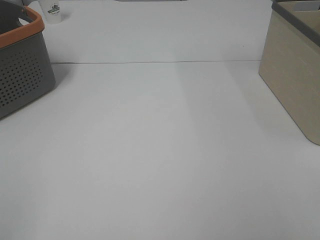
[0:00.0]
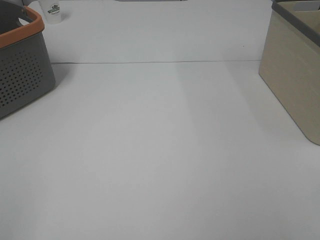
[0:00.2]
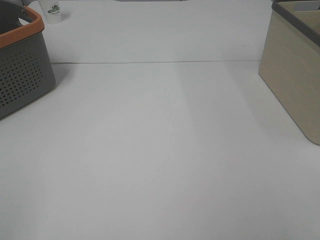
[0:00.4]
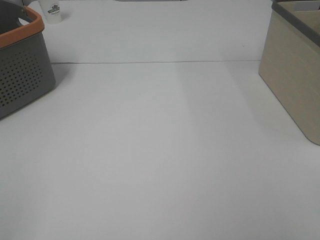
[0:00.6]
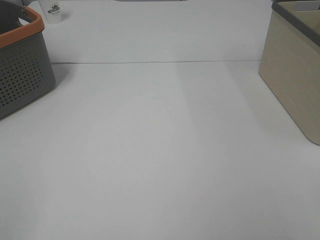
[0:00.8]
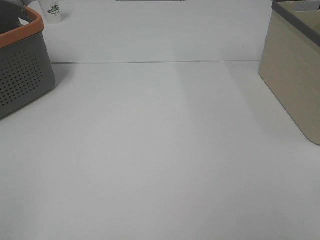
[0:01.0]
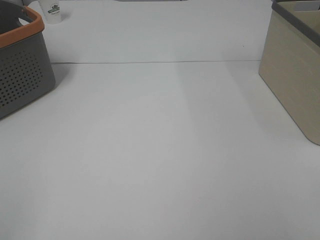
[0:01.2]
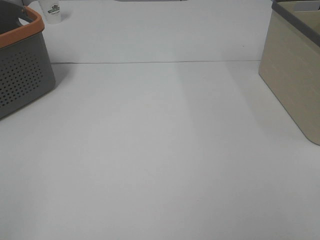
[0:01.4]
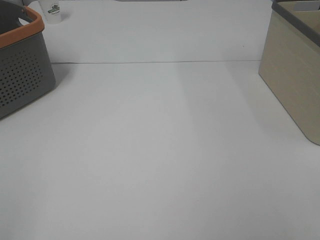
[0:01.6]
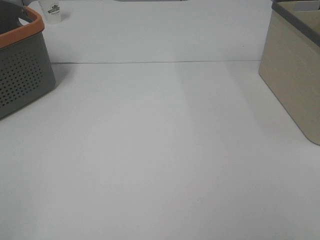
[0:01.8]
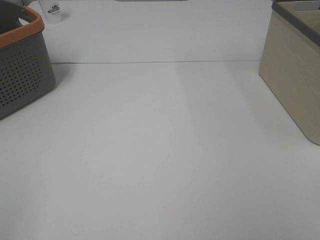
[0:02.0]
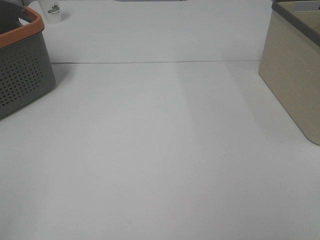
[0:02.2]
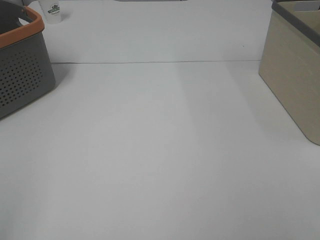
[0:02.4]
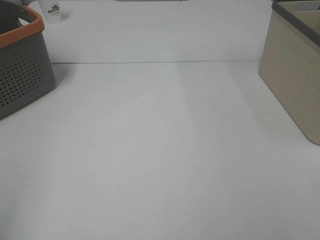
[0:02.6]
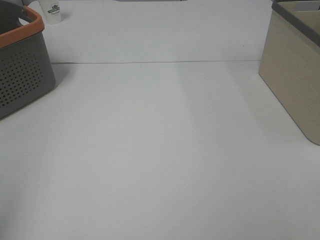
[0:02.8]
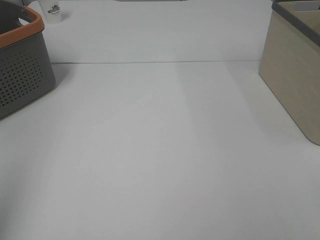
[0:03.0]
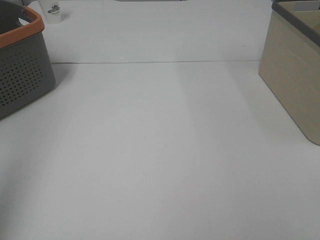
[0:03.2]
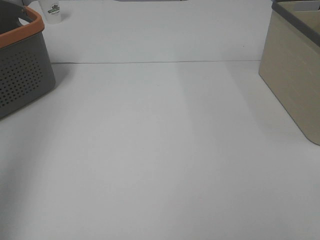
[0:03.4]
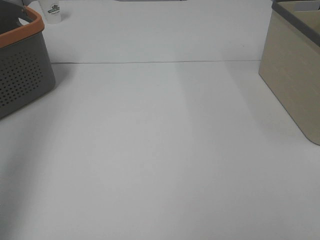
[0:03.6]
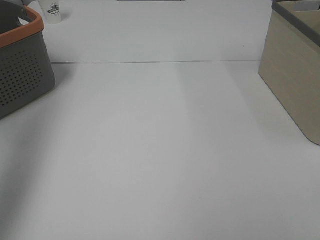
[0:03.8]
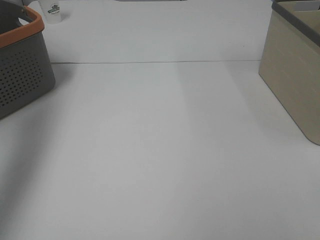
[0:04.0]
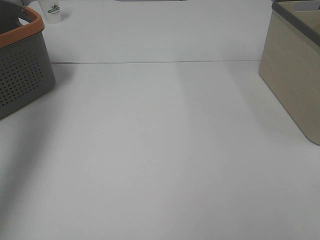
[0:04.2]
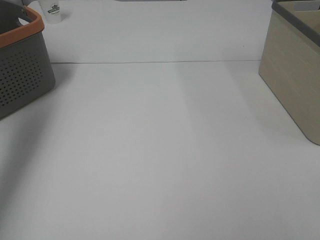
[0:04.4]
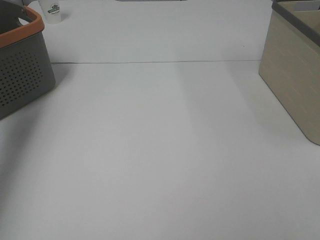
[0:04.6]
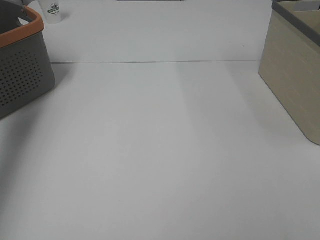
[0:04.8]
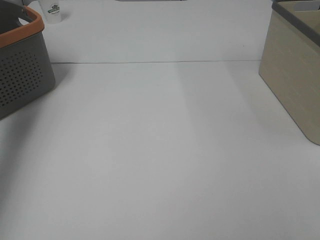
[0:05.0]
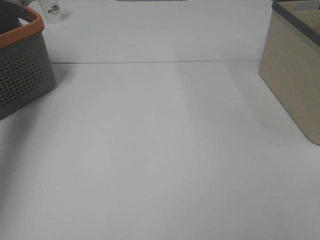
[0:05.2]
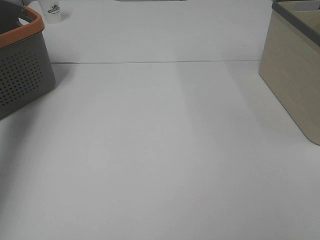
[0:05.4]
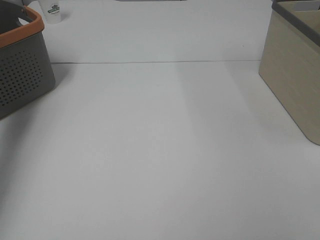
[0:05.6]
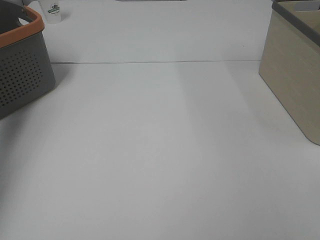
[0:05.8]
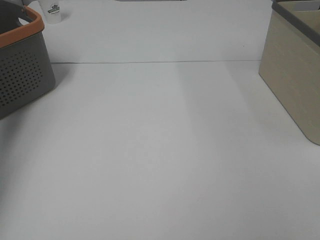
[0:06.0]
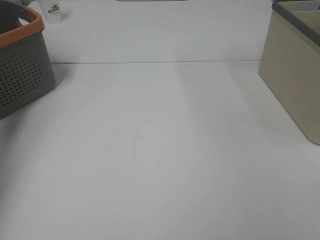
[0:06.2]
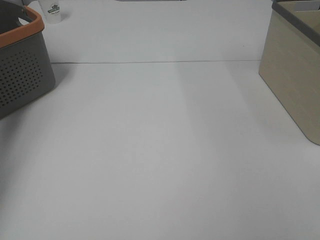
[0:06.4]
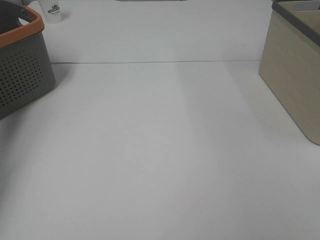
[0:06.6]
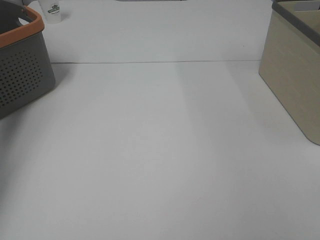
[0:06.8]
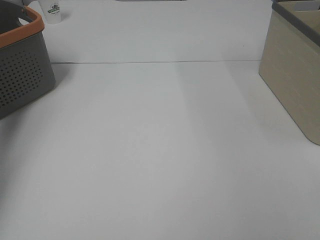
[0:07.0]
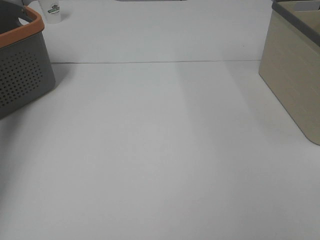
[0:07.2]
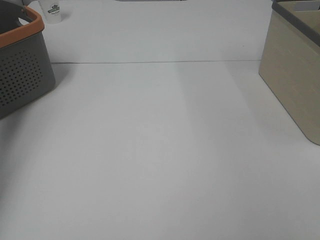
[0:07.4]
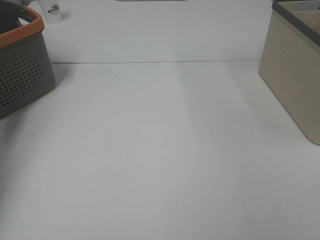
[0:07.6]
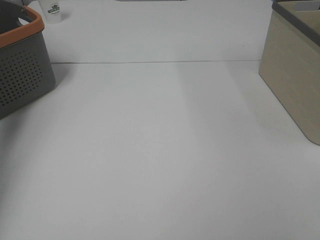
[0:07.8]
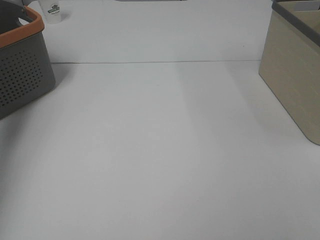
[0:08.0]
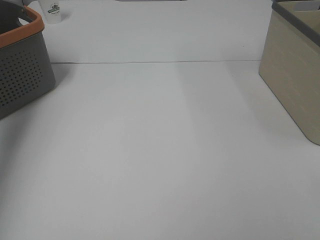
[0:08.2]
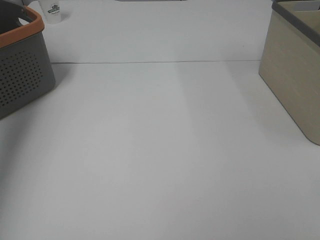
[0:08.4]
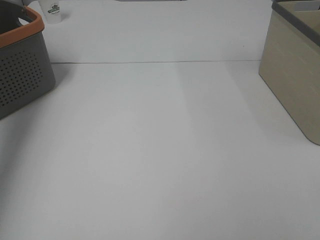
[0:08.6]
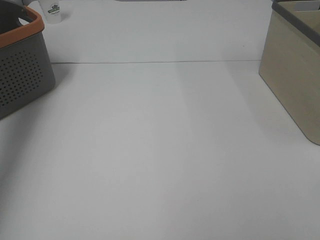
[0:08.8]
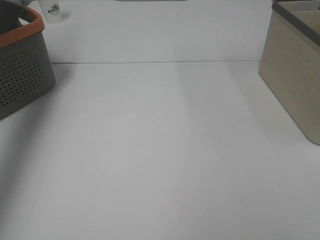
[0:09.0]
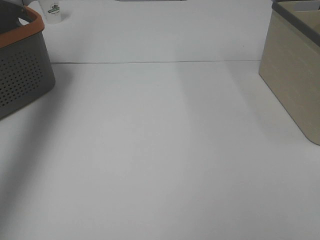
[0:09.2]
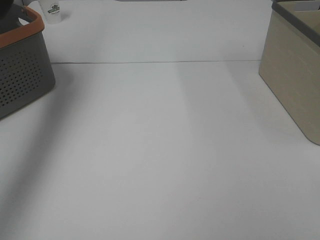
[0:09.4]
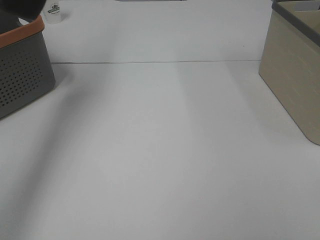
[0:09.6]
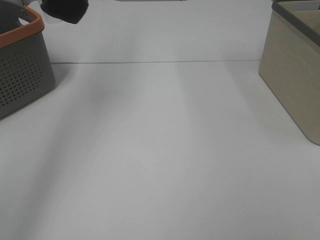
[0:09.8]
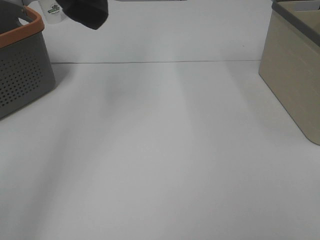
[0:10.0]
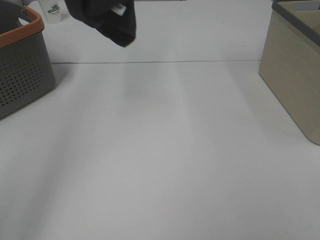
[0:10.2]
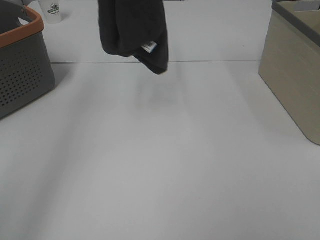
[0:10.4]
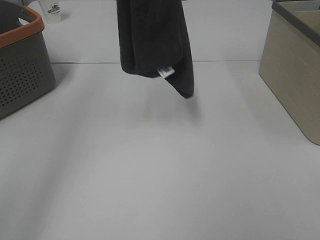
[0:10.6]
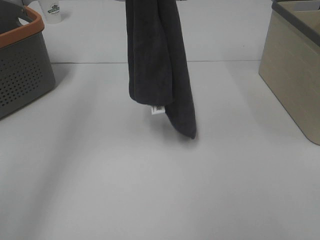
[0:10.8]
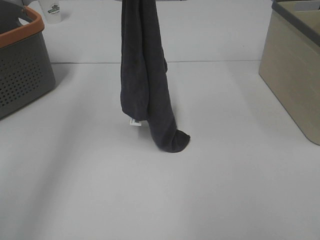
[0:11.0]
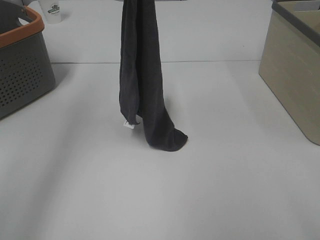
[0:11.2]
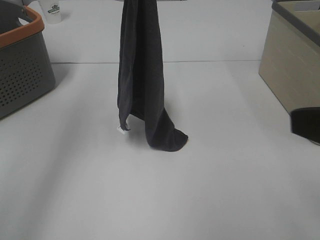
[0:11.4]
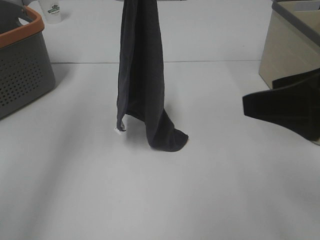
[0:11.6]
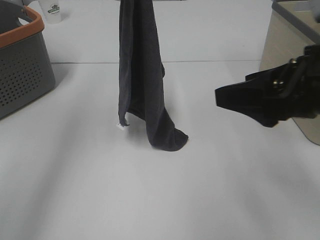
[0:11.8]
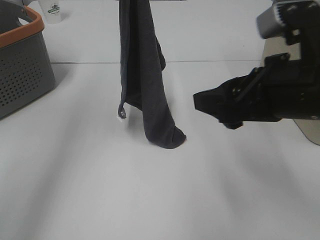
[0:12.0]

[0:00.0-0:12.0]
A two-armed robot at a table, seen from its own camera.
Task of the whole recording: Remove the towel and place it.
0:00.0 to 0:01.6: The two grippers keep their place.
0:03.0 to 0:04.4: The left gripper shifts about 30 cm forward.
0:04.4 to 0:06.0: The left gripper goes some 15 cm downward, forward and to the left.
0:07.6 to 0:09.0: The left gripper heads upward, covering approximately 30 cm.
0:09.0 to 0:10.4: The left gripper goes some 20 cm to the right.
0:10.4 to 0:12.0: The left gripper travels downward by approximately 10 cm; the right gripper heads forward and to the left, covering approximately 25 cm.

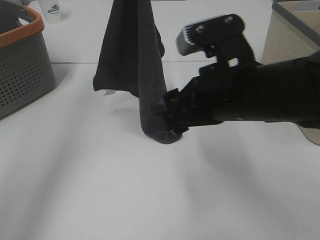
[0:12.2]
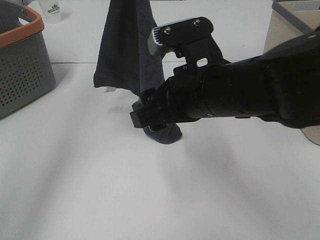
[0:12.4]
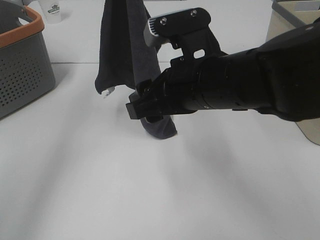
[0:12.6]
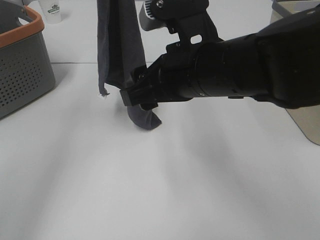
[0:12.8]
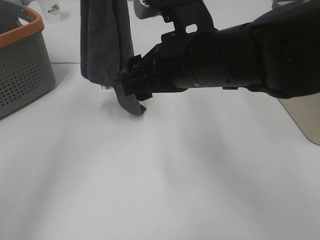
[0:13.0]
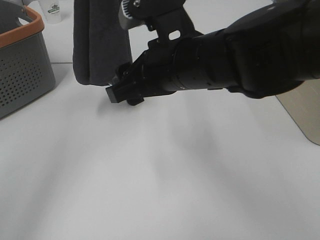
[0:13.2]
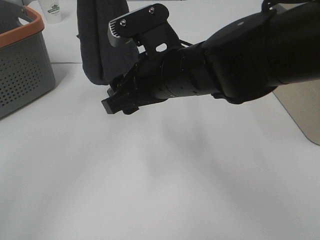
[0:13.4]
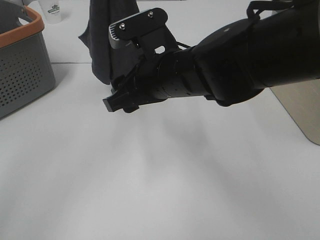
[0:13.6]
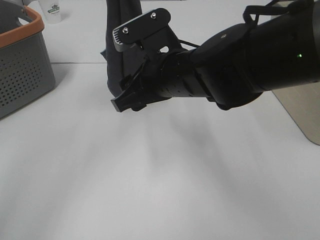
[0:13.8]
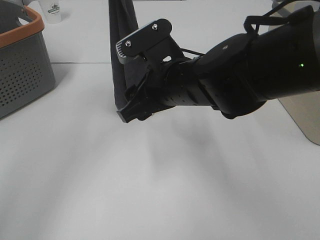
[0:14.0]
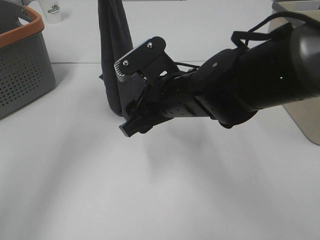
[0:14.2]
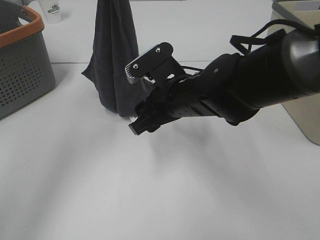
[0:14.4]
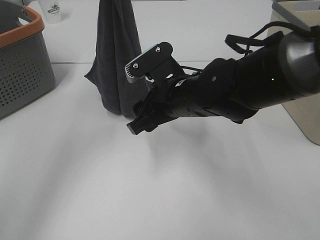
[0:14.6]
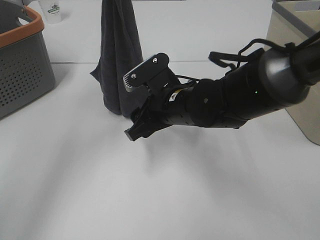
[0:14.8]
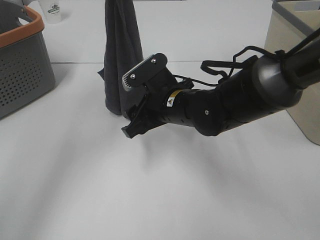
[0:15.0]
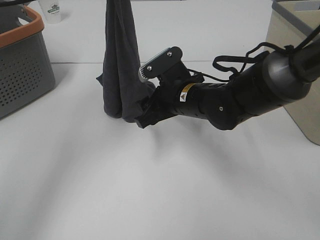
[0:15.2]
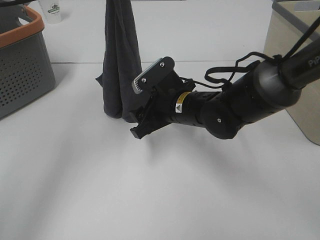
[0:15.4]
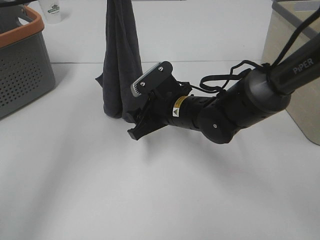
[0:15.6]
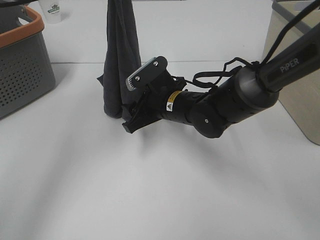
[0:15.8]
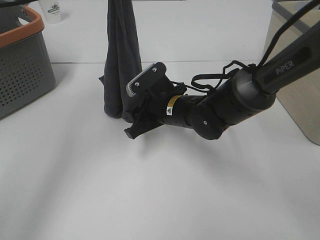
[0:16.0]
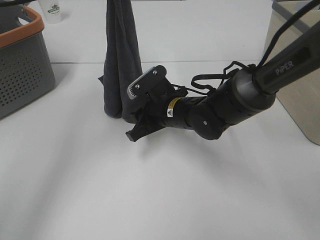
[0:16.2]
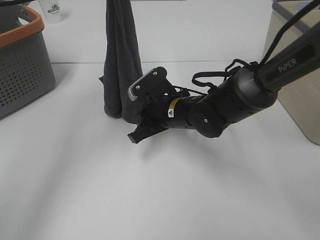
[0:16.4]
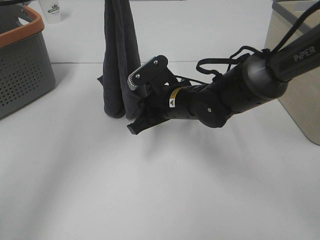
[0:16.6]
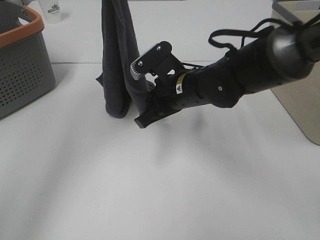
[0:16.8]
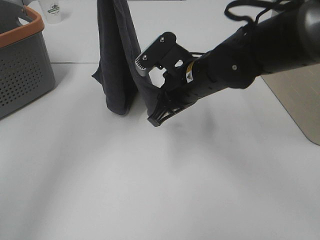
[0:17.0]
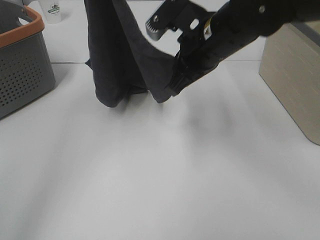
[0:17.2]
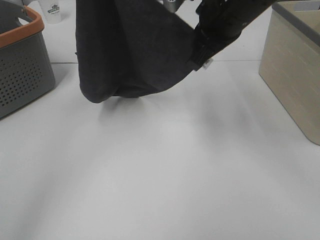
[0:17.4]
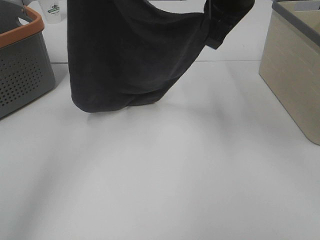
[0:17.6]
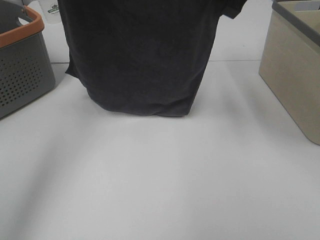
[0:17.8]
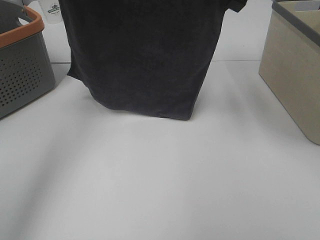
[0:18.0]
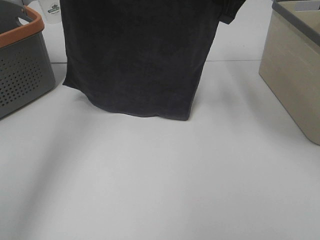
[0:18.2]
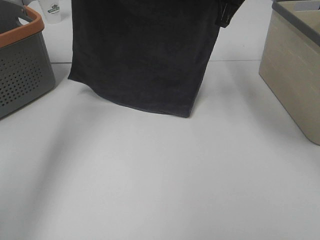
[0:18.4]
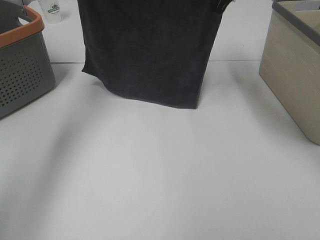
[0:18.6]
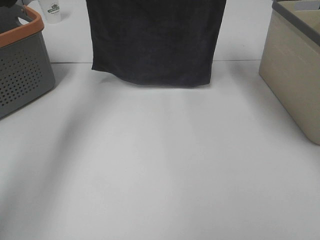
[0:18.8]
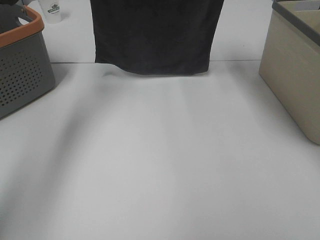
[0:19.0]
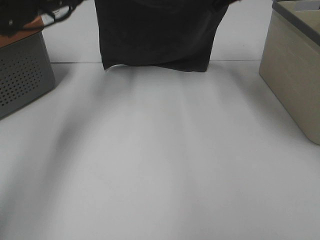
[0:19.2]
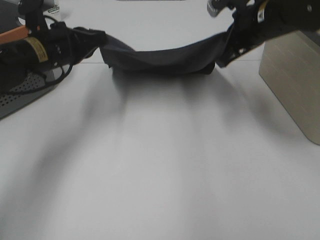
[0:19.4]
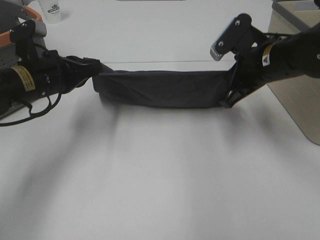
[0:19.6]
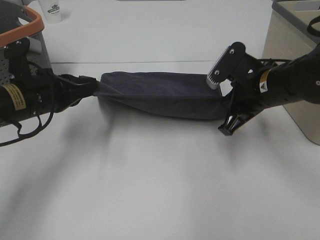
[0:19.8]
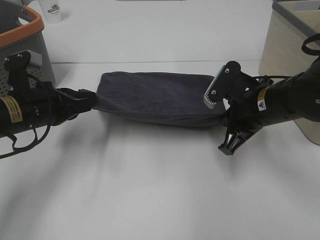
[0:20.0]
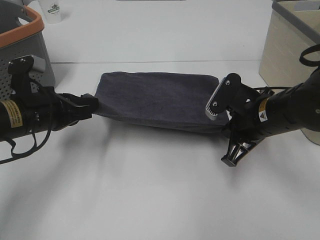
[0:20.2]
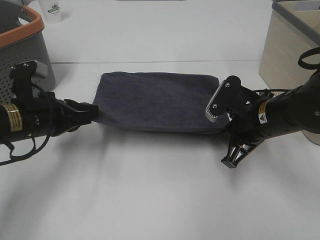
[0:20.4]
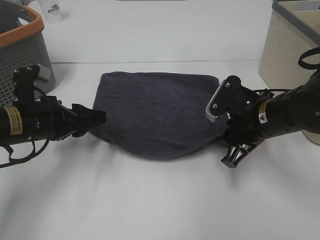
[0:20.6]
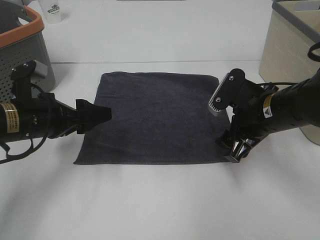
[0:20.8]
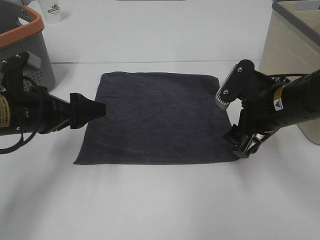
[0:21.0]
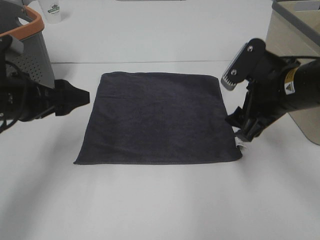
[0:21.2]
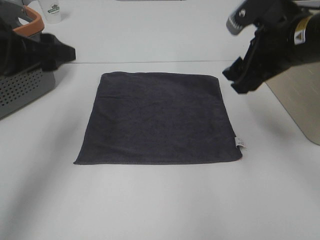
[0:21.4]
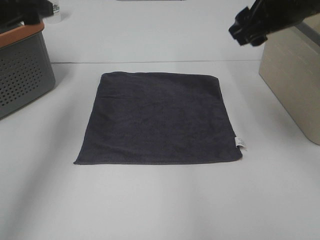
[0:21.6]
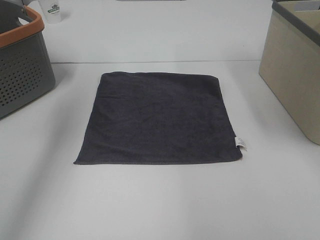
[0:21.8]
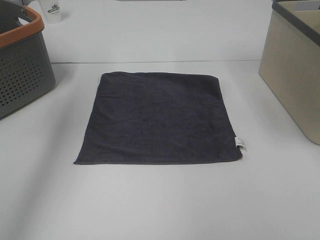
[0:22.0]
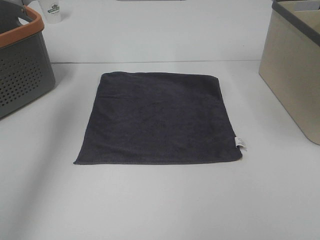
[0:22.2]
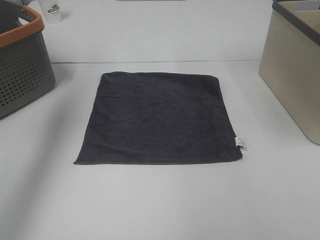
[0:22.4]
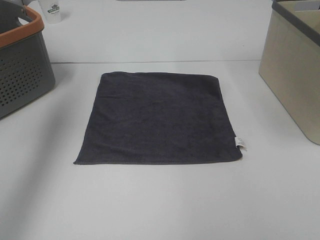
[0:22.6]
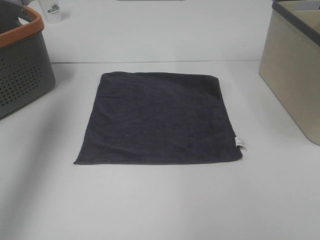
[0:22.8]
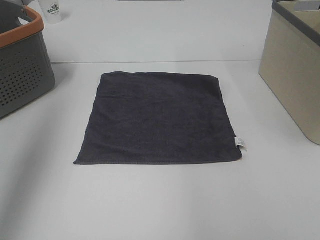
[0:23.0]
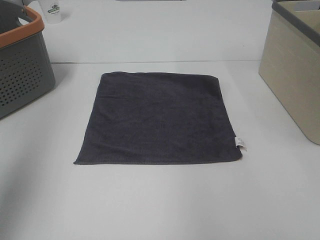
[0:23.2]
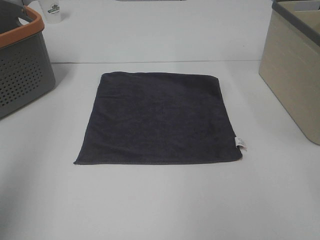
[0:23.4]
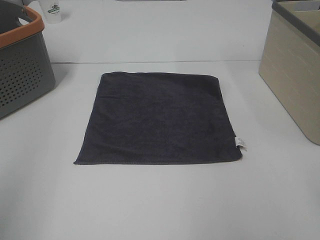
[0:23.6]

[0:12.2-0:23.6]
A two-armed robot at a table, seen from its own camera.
Task of the whole recording: Remove the towel and place it.
Step, 0:12.2 to 0:15.0: Right hand: grab a corner of the grey towel and straighten it.
Step, 0:15.2 to 0:16.6: Right hand: spread the grey towel flat on the table.
0:12.2 to 0:13.6: The right gripper goes roughly 10 cm to the left and forward.
0:13.6 to 0:15.0: Both grippers move downward, some 5 cm.
0:15.0 to 0:16.4: The right gripper closes up.
0:16.4 to 0:17.8: The left gripper travels to the left by approximately 5 cm. Meanwhile the right gripper travels upward by approximately 30 cm.
0:17.8 to 0:19.4: Both grippers move downward, some 15 cm.
0:19.4 to 0:20.8: The right gripper moves backward and downward, roughly 10 cm, and opens its fingers, while the left gripper goes approximately 10 cm backward, and opens.
0:20.8 to 0:22.2: The two grippers go some 25 cm upward.
0:22.2 to 0:23.6: The left gripper goes approximately 25 cm backward.
